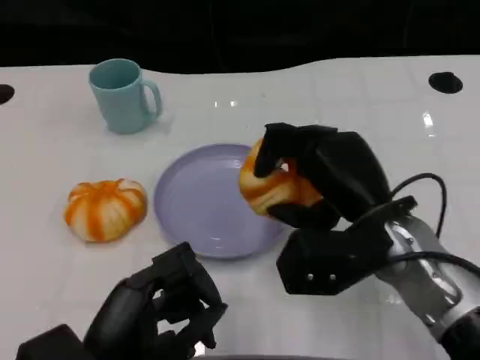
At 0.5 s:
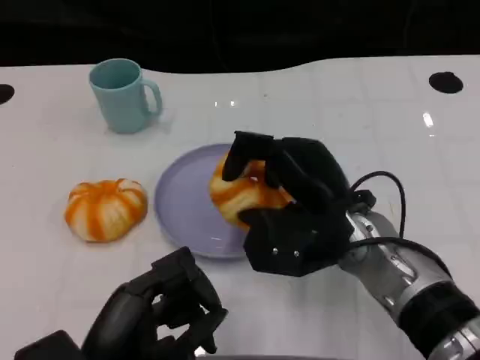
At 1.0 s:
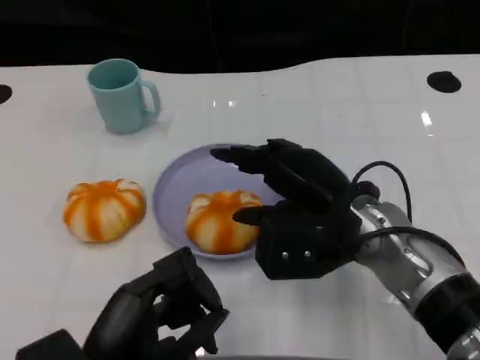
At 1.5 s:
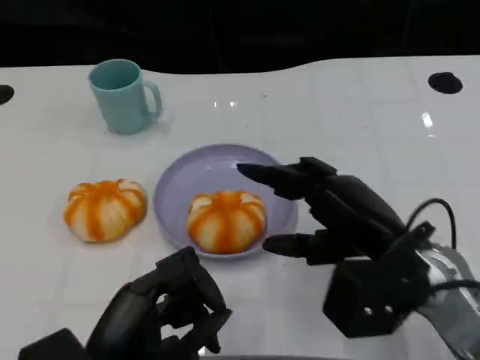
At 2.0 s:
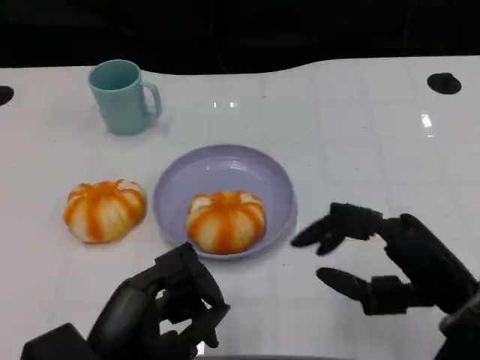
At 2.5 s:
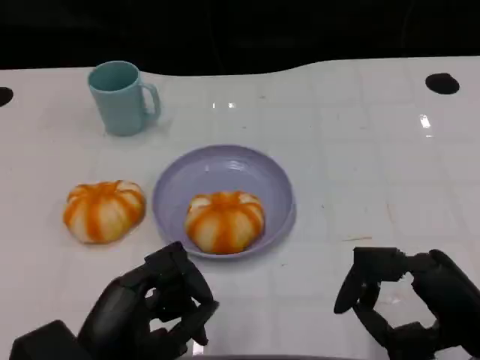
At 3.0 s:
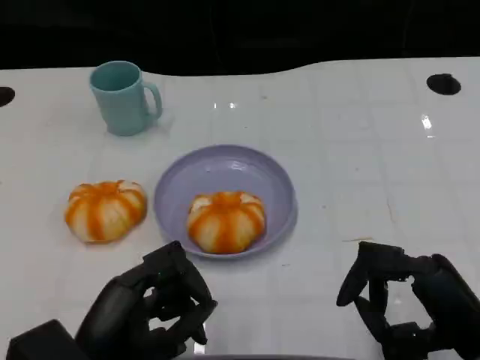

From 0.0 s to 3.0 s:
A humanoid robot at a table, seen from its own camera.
Task of the whole recording: Grasp the bread from the table and place it into the plate.
From 0.0 s to 1.5 s: The right hand changes place by approximately 5 cm.
From 1.5 s to 3.0 s: The right hand moves backward and to the right, approximately 10 cm.

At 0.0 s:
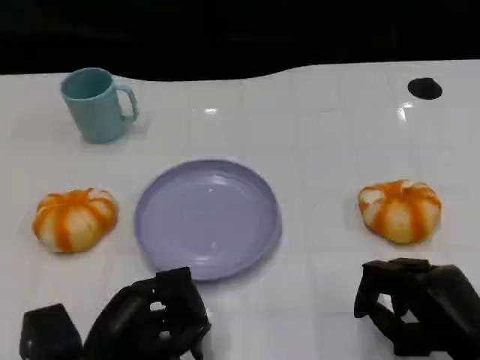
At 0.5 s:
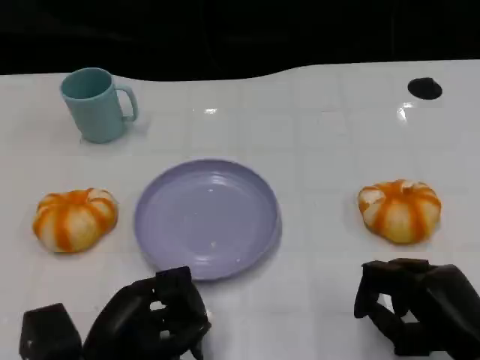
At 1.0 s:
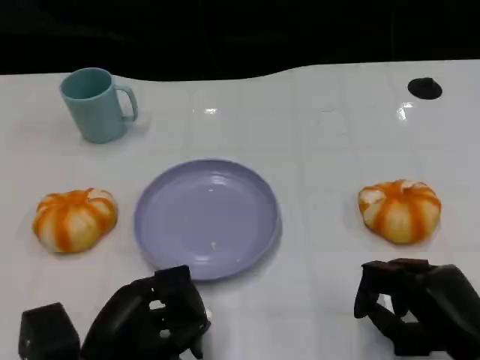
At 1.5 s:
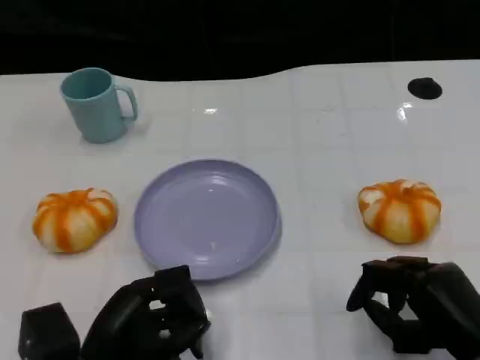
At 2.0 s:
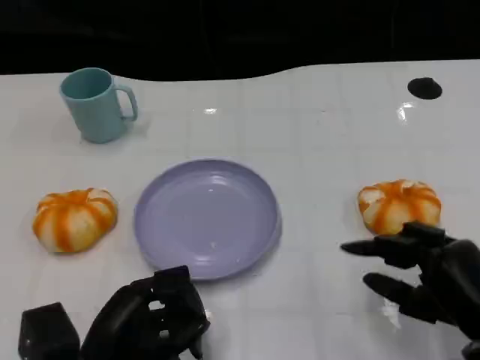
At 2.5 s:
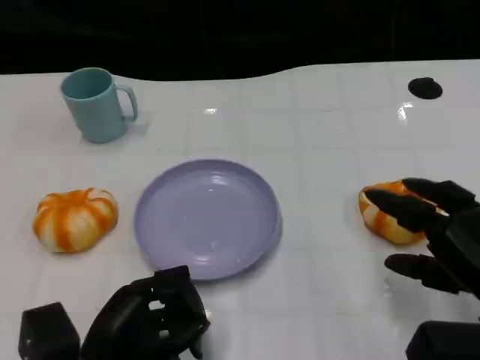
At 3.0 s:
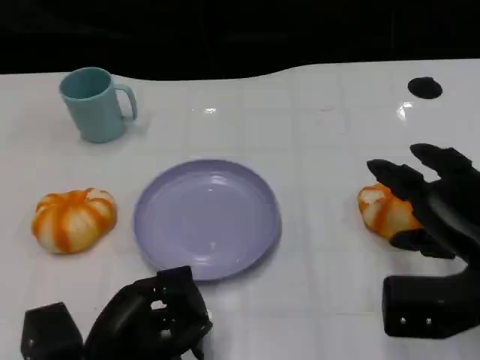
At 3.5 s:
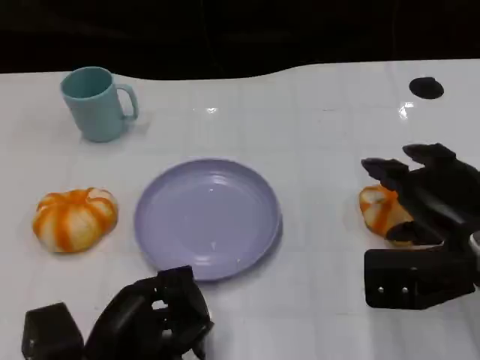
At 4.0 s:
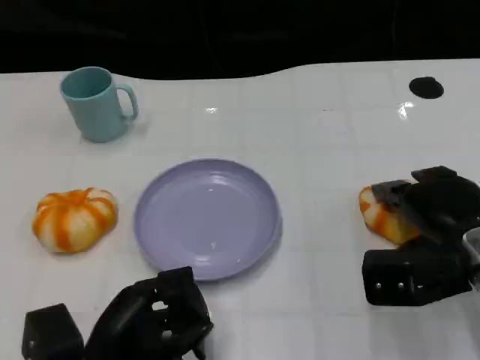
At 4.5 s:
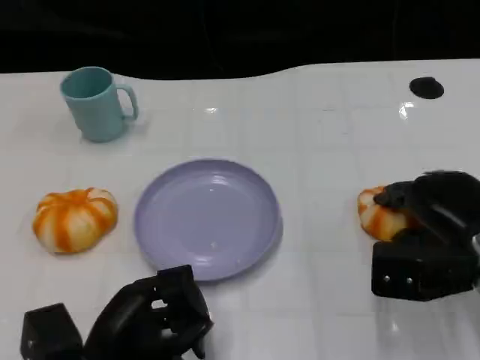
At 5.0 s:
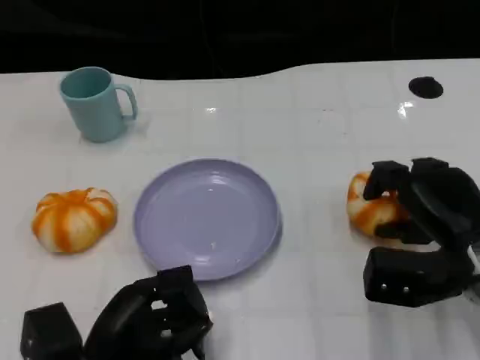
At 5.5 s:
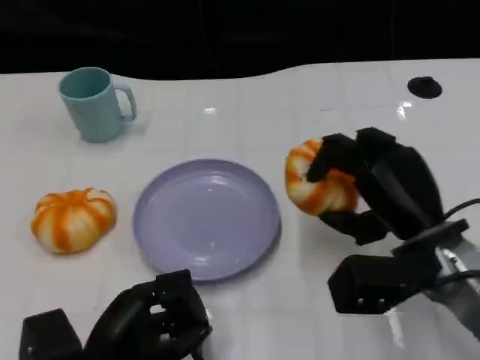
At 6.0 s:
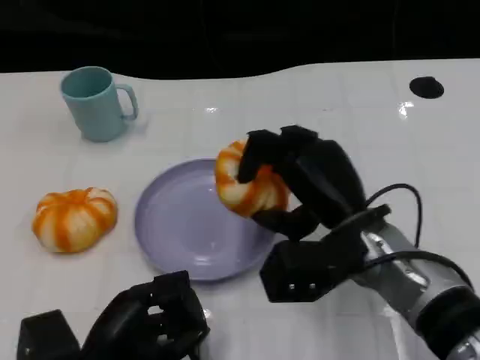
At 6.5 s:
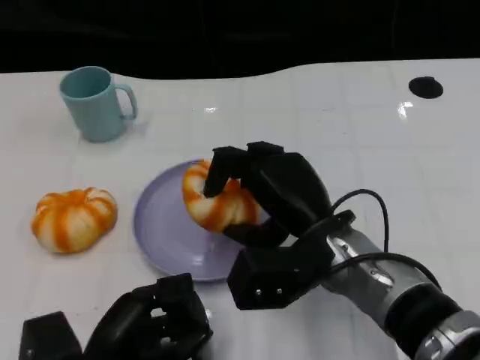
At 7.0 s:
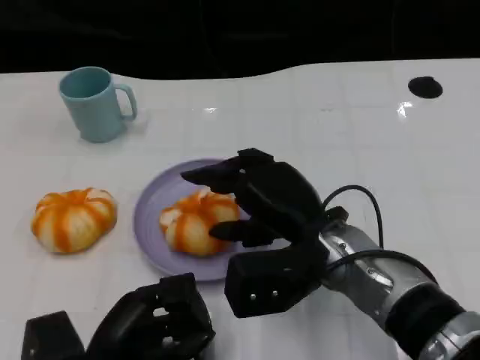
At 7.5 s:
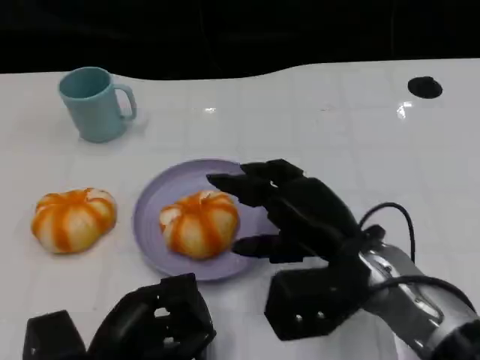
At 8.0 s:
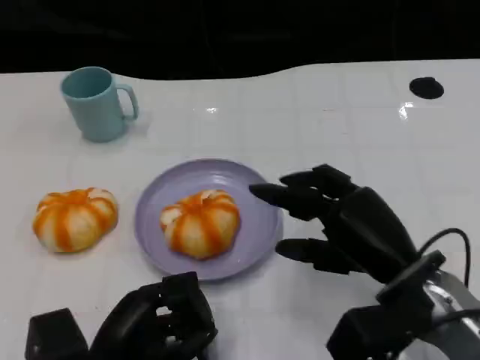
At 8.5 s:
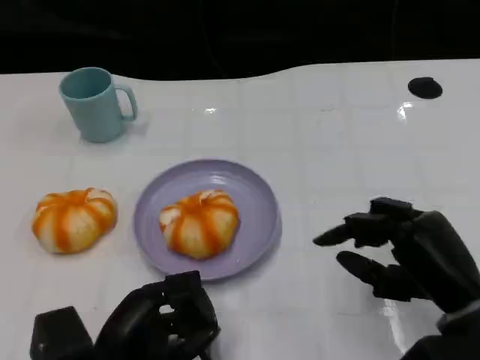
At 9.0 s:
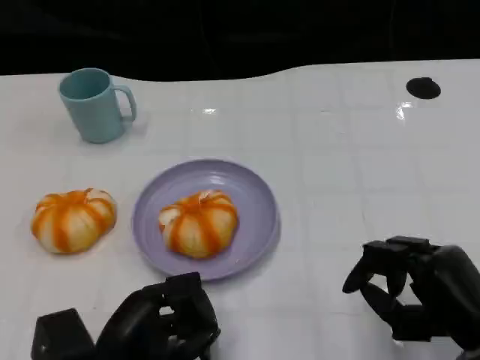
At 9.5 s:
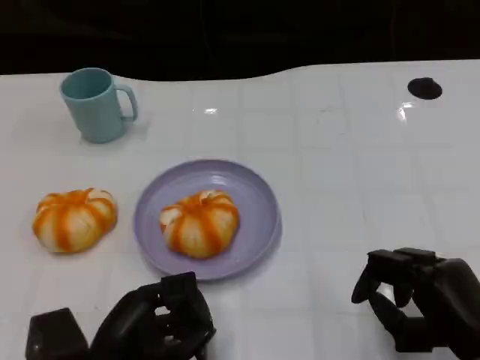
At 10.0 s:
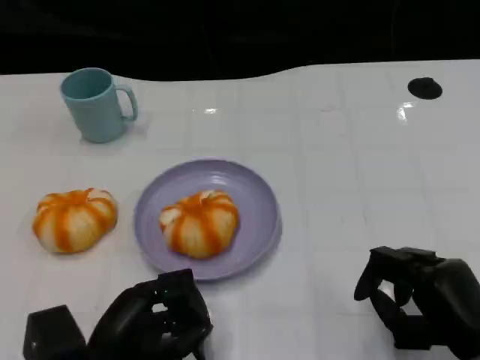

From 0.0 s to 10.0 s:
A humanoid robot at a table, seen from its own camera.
Task of the whole recording: Grasp the bread from the table and place it into the plate.
From 0.0 s to 2.0 s: The hands move only a little.
From 2.0 s to 4.0 s: The right hand goes about 10 cm forward.
From 4.0 s to 6.0 s: The right hand shifts about 10 cm to the left.
From 6.0 s to 8.0 s: The right hand moves to the right, some 5 cm.
From 8.0 s to 10.0 s: The right hand is displaced to the right, backward and downward by some 10 cm.

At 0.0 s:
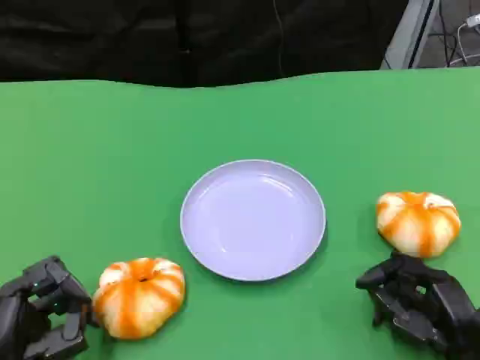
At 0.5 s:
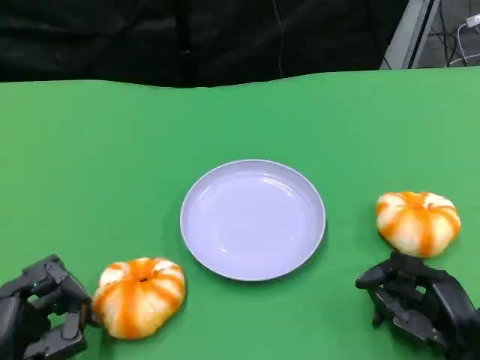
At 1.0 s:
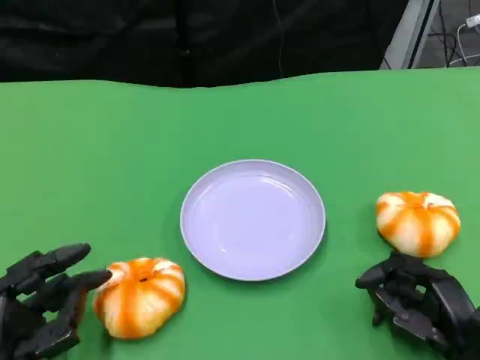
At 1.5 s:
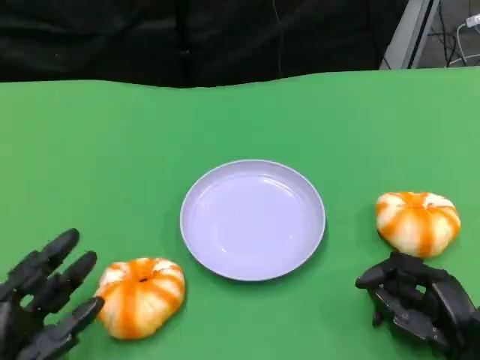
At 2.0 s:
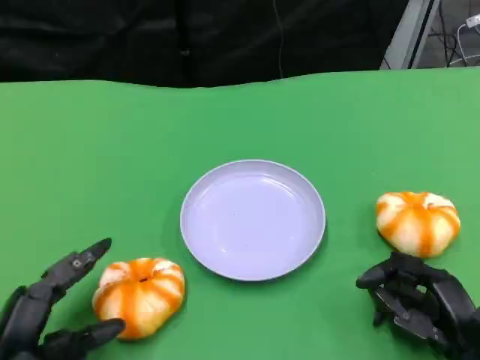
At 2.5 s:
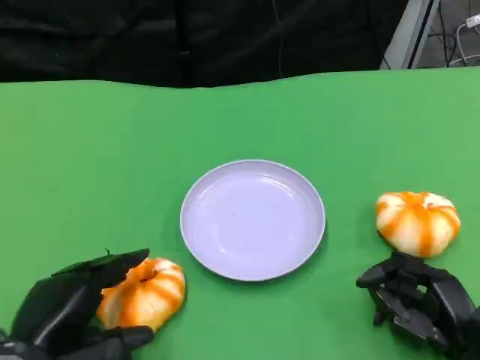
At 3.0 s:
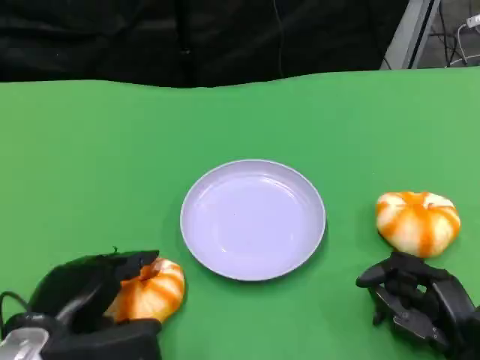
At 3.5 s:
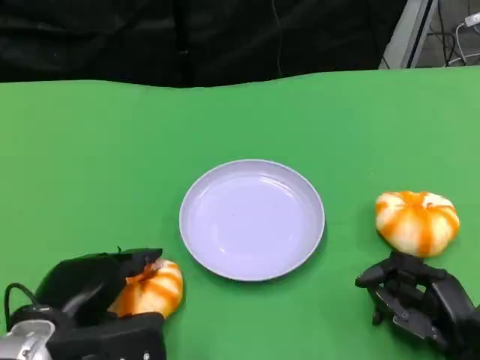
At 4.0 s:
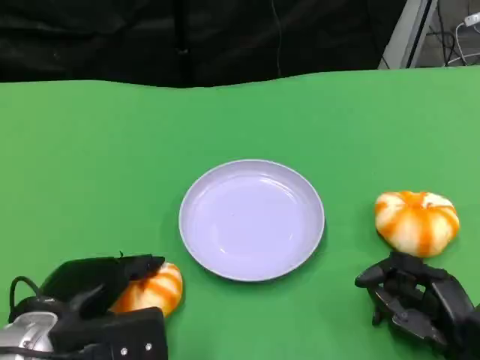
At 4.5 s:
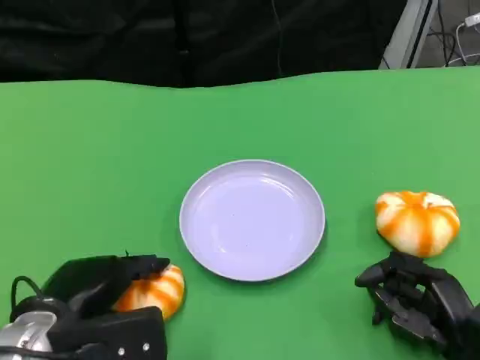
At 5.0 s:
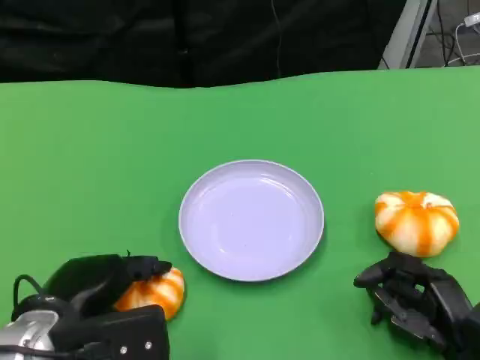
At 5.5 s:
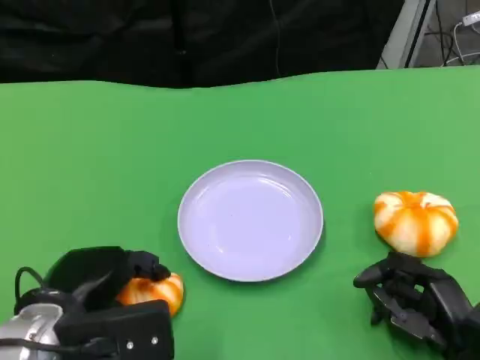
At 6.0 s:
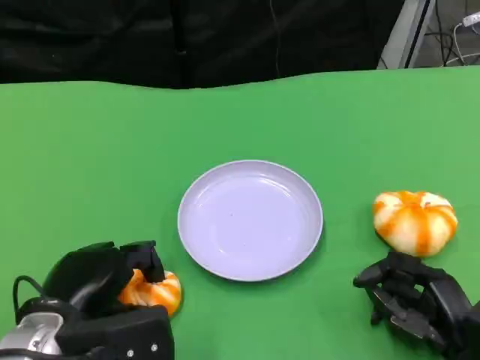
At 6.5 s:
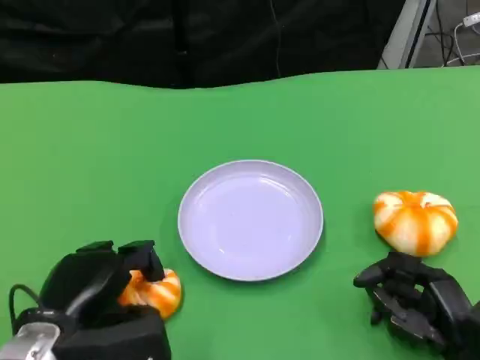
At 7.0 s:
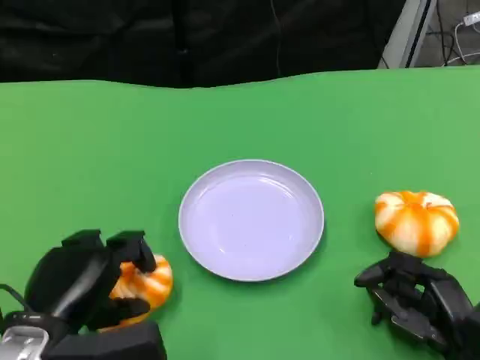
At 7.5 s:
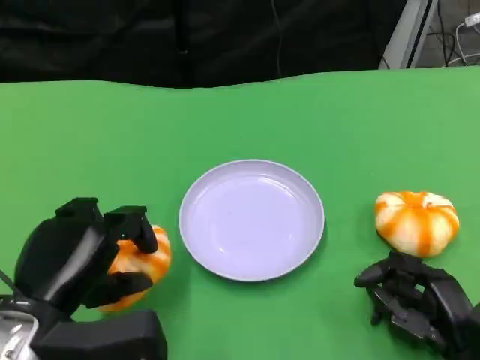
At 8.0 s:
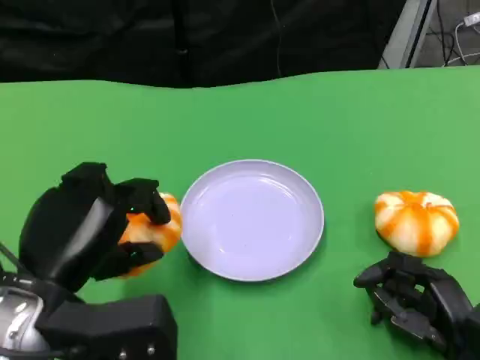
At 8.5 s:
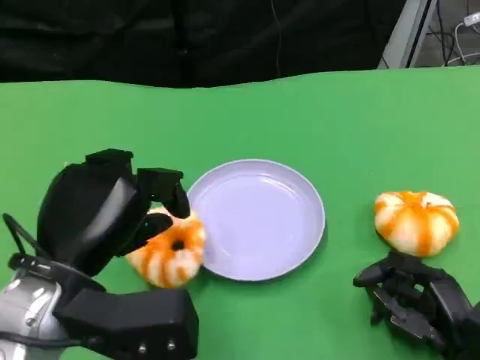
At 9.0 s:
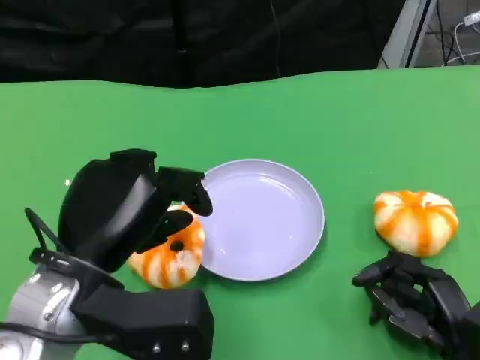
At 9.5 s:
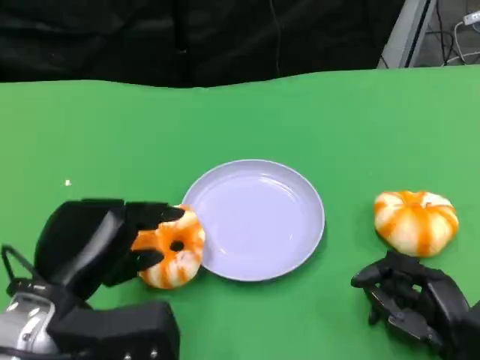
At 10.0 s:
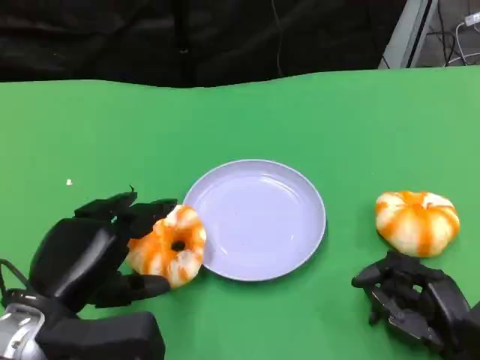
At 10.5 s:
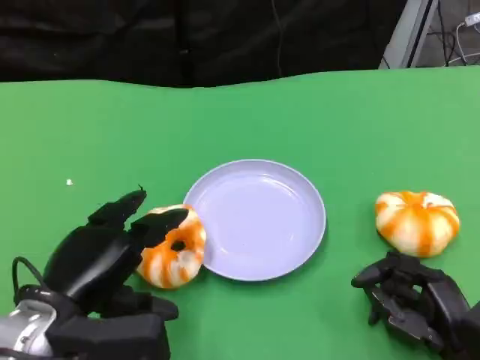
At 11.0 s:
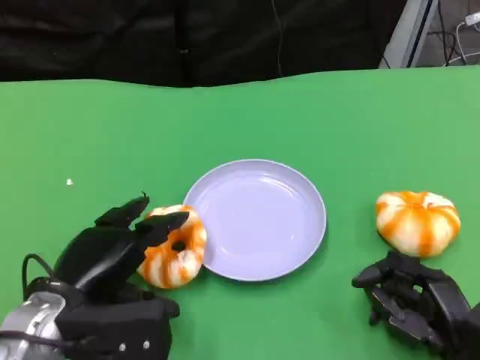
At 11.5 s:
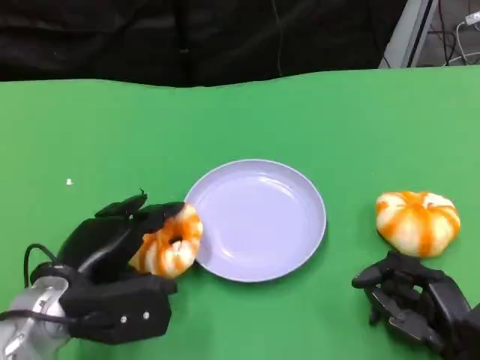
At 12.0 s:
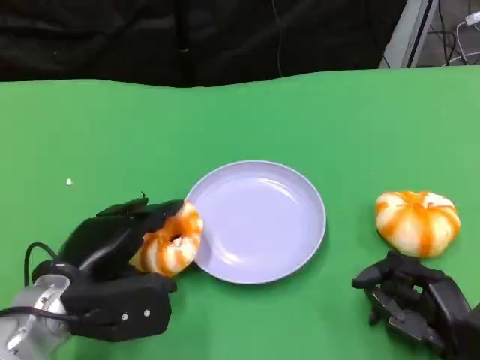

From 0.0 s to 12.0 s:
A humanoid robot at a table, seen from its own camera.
Task of the whole recording: Grasp the bread from the table and place it into the plate.
From 2.0 s to 4.0 s: The left hand ends up approximately 10 cm from where it was.
From 4.0 s to 6.0 s: There are only small adjustments of the hands.
From 6.0 s to 8.0 s: The left hand shifts about 5 cm upward.
From 8.0 s to 10.0 s: The hands stay close to where they were, moving slightly.
From 10.0 s to 12.0 s: The left hand moves roughly 5 cm.
